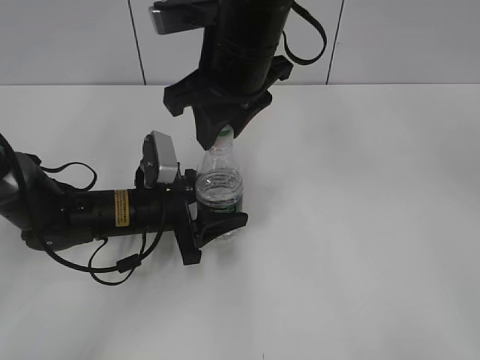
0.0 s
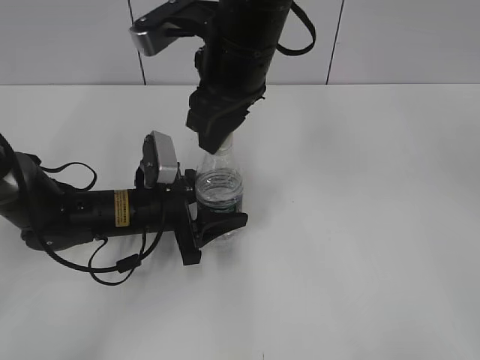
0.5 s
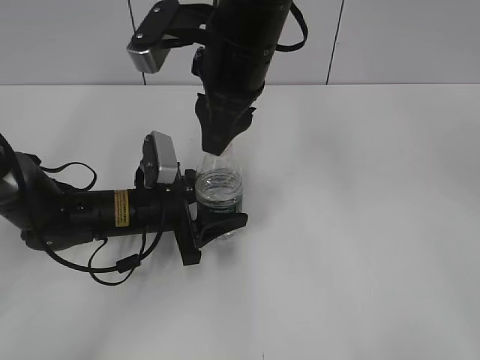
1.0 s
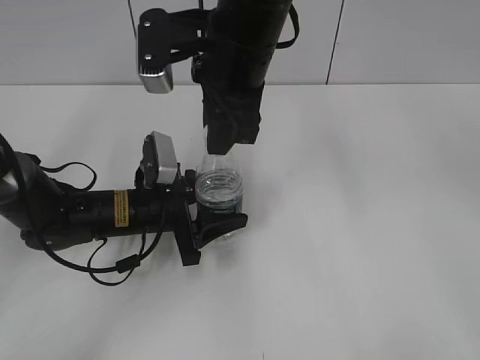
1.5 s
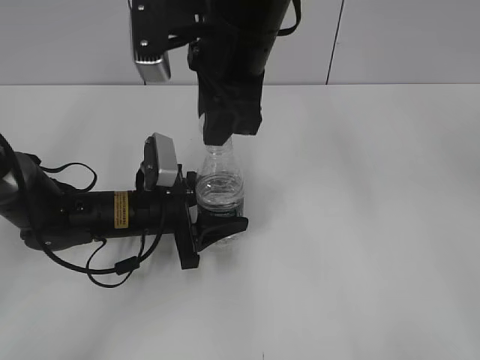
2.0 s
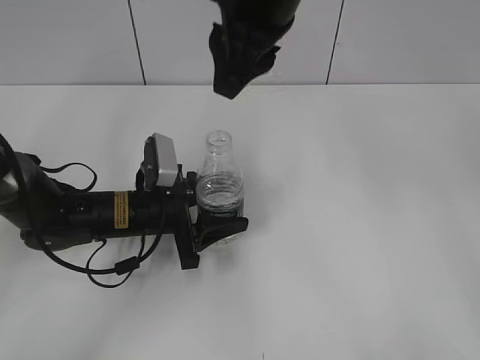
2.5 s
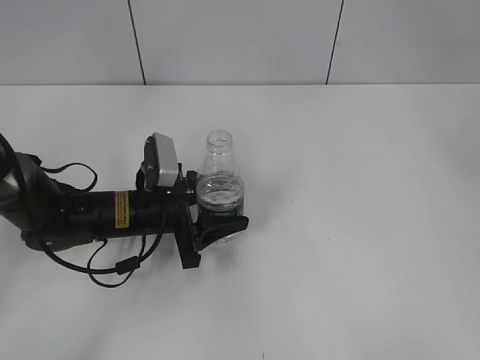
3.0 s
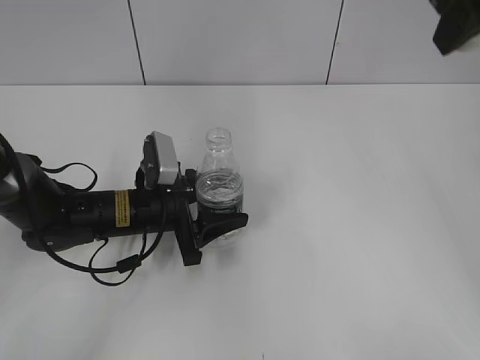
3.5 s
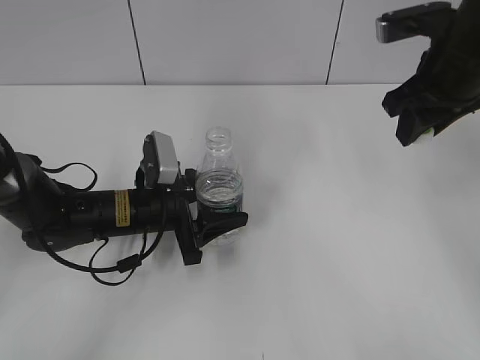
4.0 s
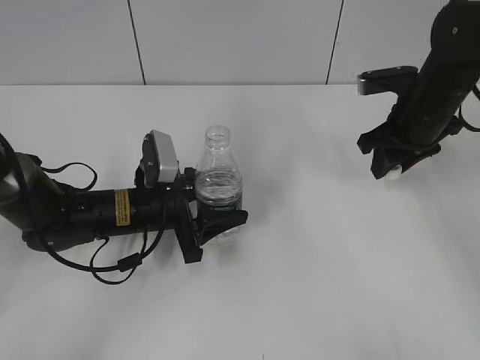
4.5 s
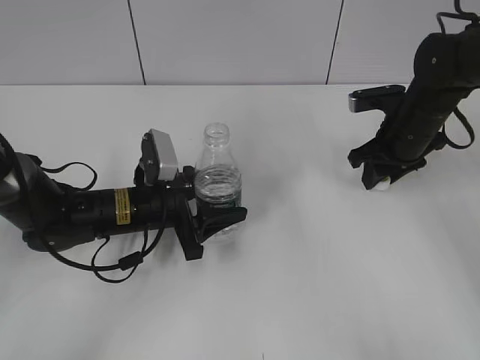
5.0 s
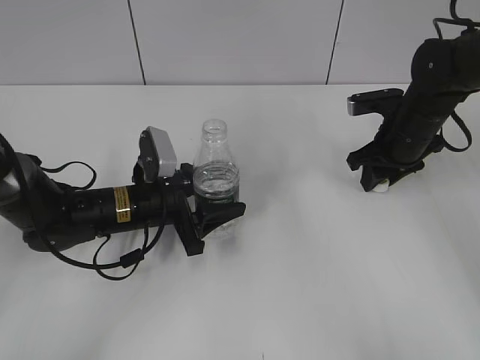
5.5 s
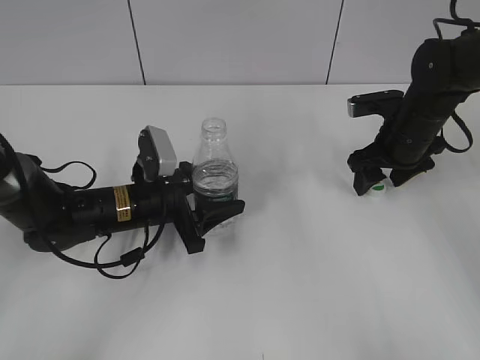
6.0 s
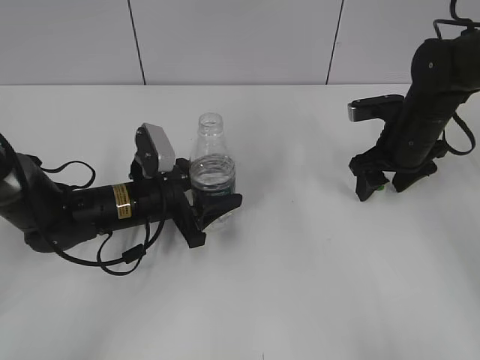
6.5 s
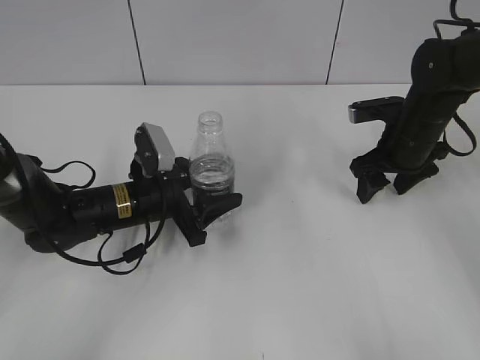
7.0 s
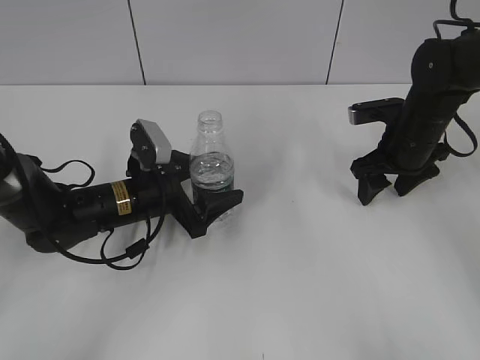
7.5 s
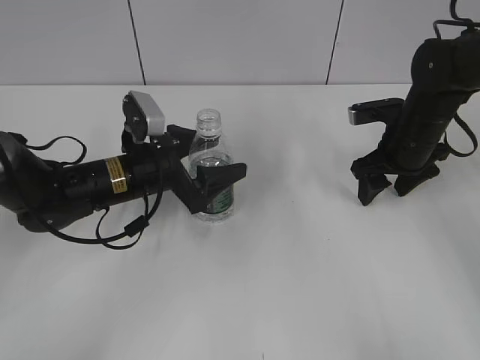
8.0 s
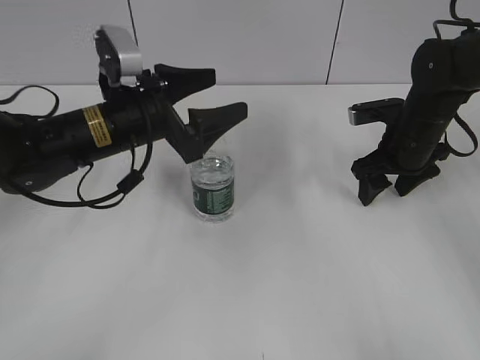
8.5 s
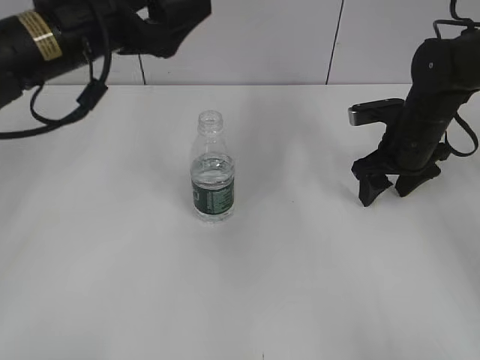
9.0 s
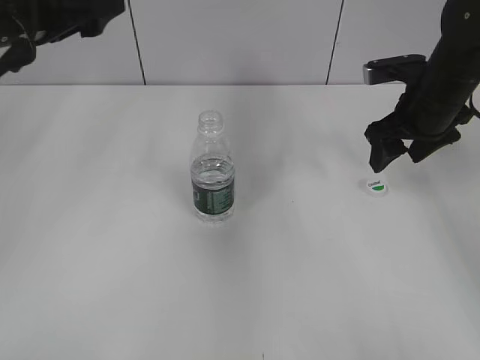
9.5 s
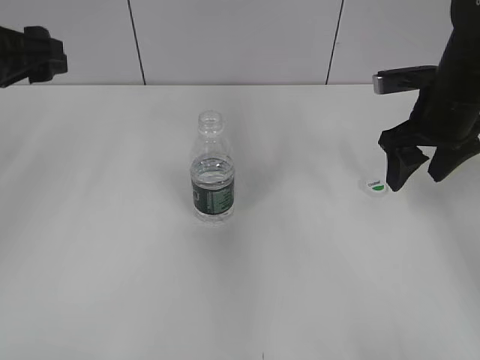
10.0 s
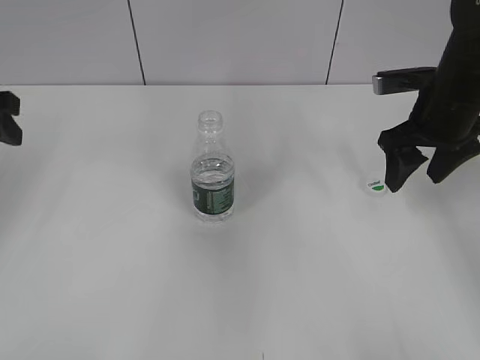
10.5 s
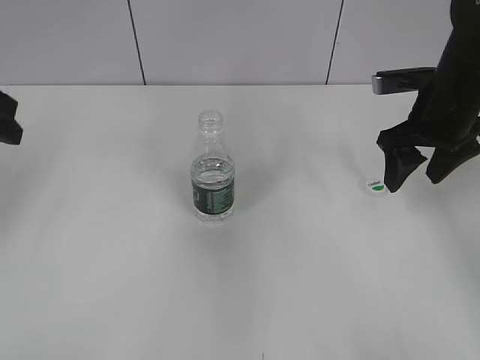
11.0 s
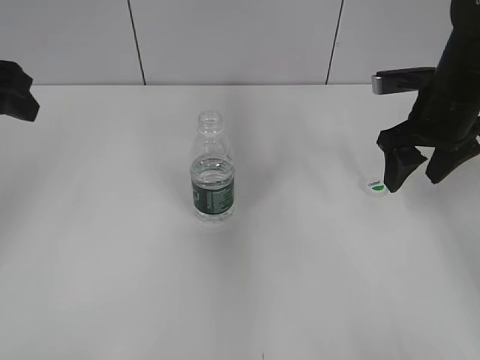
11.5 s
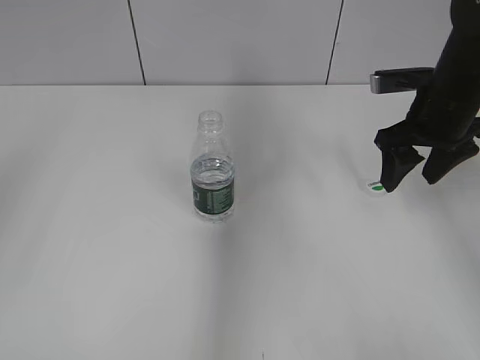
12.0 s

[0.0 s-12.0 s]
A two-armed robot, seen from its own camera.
Step, 0.0 to 2.0 s: Unscrew the bottle cap with the right gripper while holding the bottle with the left gripper.
Step, 2.5 to 6.0 s: Place the bottle cap on the table with the right gripper.
Step, 6.5 to 7.5 s: Place the bottle on the table with the left gripper.
2.0 to 4.0 s: The right gripper goes about 20 cm to the right.
4.0 to 6.0 s: The right gripper shifts some 15 cm downward, and opens.
6.0 to 8.0 s: The left gripper opens its fingers.
8.0 to 10.0 s: The right gripper heads upward, covering about 10 cm. The left gripper shifts some 25 cm upward and to the left.
10.0 to 12.0 s: The left gripper is displaced backward and upward by approximately 20 cm.

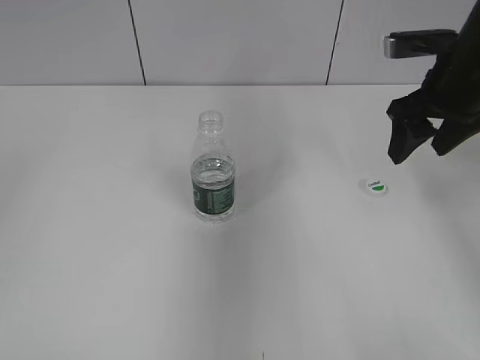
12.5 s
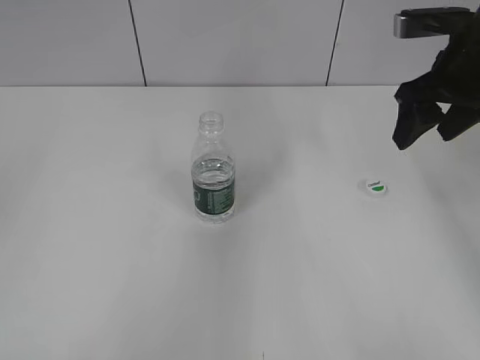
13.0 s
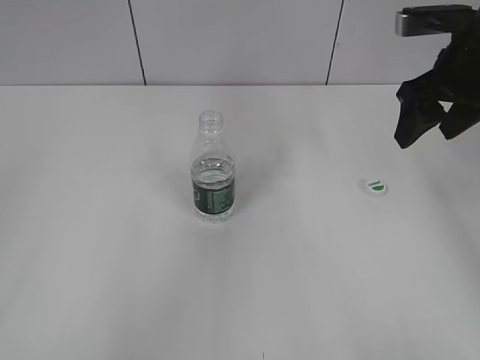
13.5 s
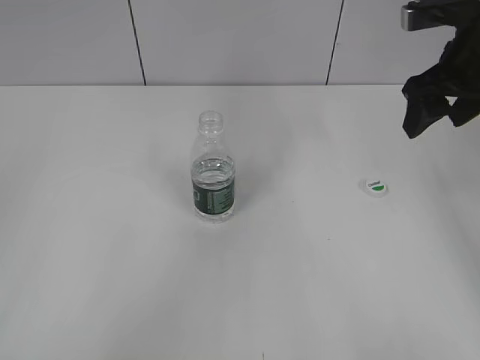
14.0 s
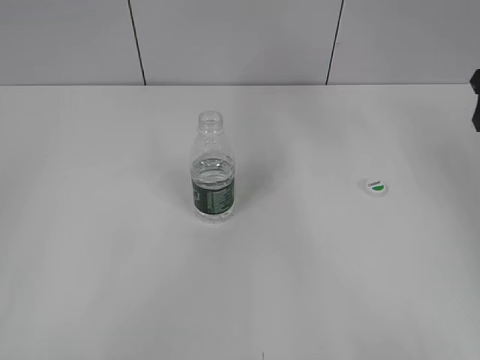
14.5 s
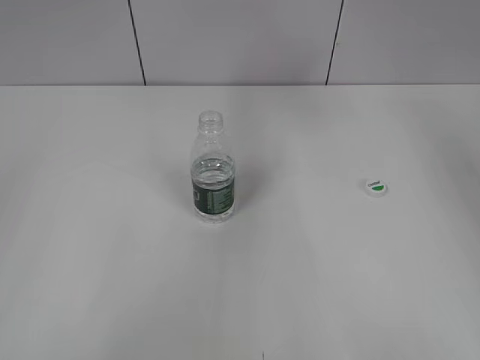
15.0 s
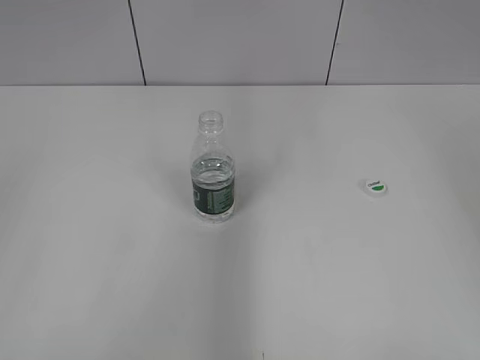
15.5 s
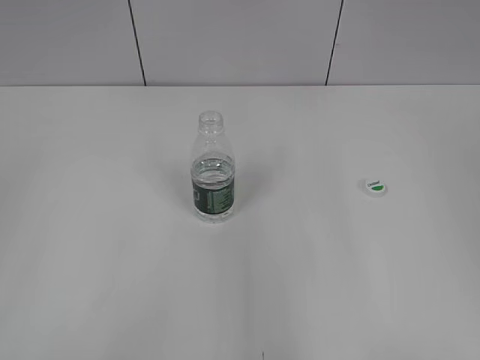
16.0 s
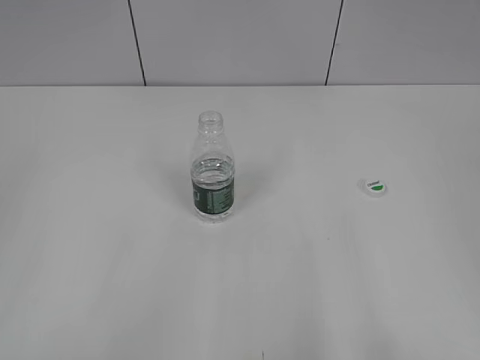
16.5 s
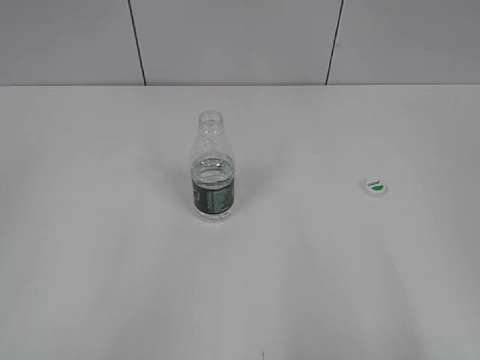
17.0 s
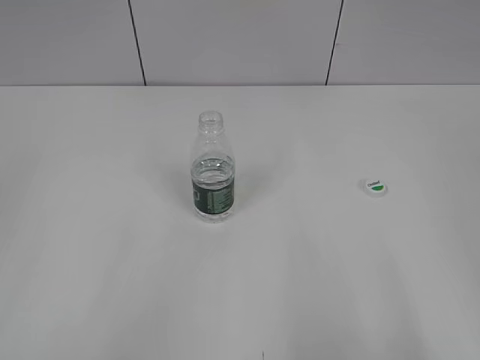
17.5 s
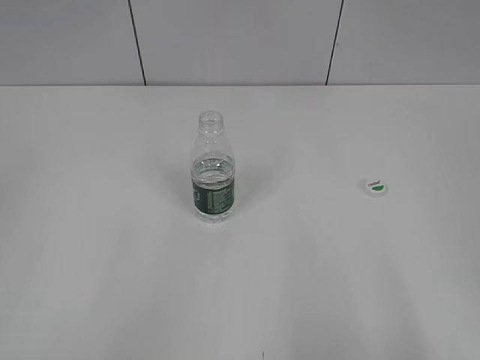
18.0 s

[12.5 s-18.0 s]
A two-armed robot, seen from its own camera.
12.5 to 14.5 s: The right gripper is displaced to the right by approximately 10 cm. The left gripper is displaced downward by approximately 15 cm.
